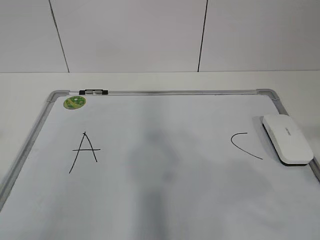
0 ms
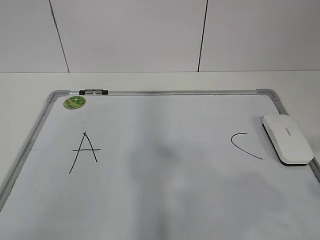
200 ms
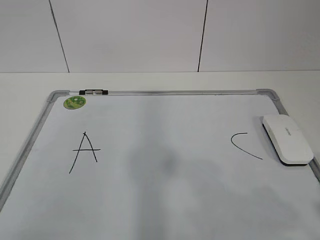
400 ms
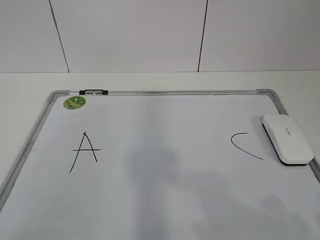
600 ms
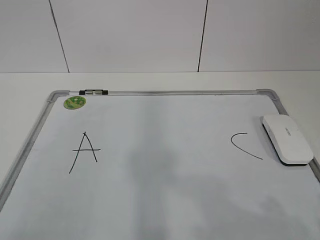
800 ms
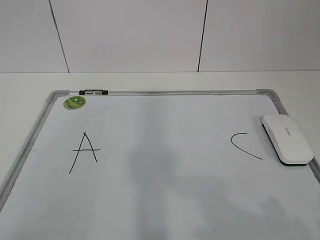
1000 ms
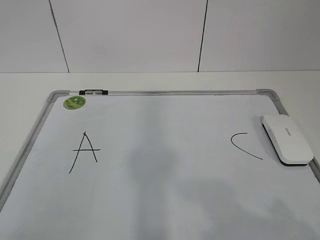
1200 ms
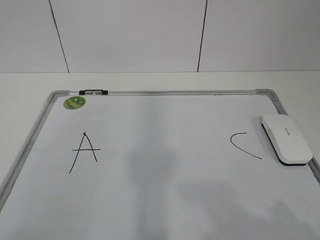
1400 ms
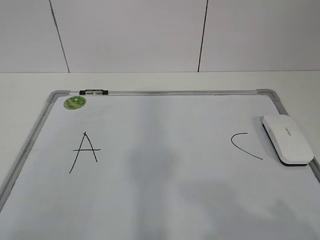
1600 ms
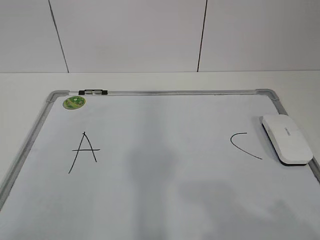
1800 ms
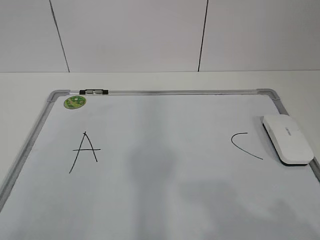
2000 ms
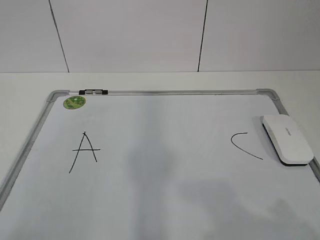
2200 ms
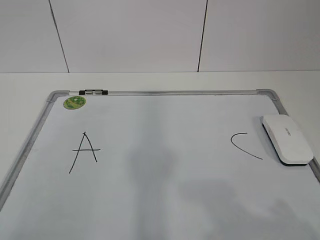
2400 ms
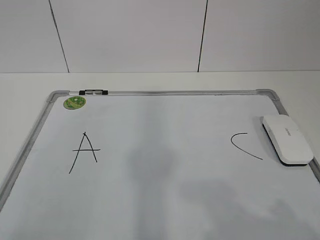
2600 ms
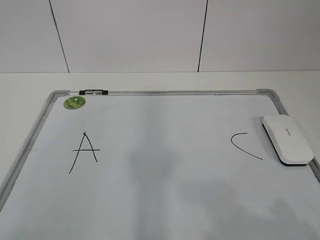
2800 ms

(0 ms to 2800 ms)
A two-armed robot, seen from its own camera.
Task of the whole recording: pick up the eraser on the blackboard and erase the letter "B".
0 ms - 1400 ms: The right gripper goes roughly 10 cm downward, while the left gripper is displaced downward by roughly 5 cm.
1400 ms - 2800 ms: Both grippers stay put.

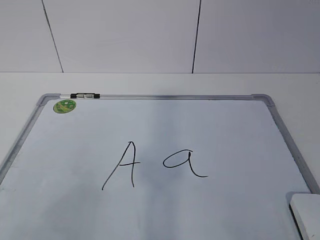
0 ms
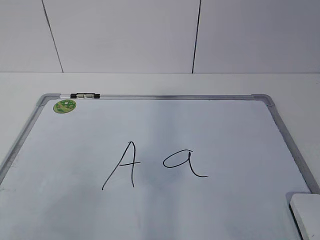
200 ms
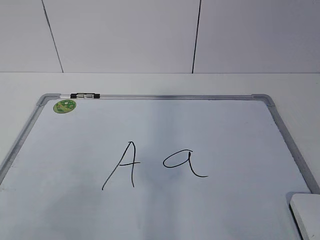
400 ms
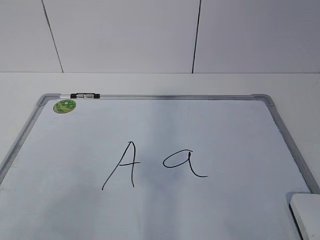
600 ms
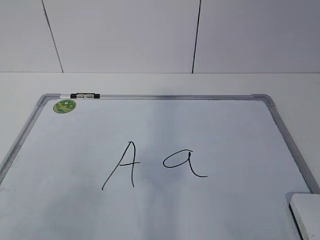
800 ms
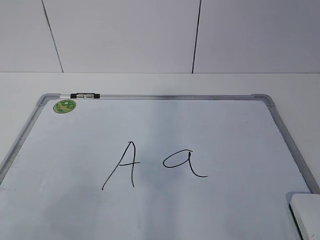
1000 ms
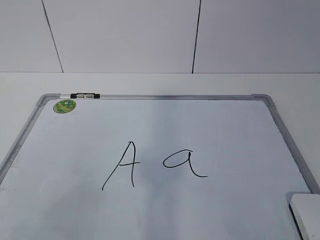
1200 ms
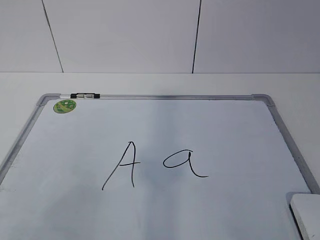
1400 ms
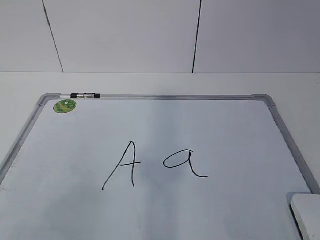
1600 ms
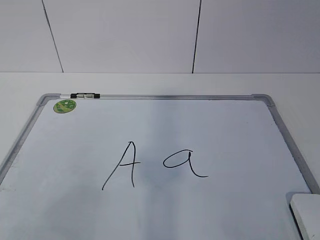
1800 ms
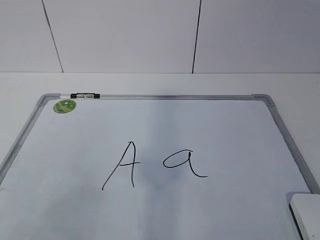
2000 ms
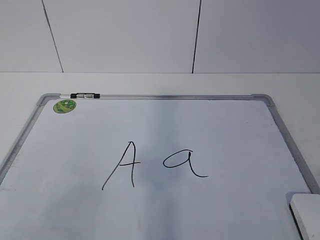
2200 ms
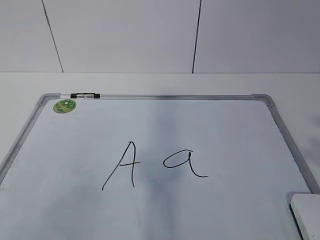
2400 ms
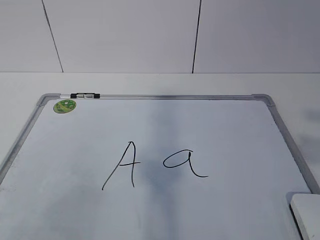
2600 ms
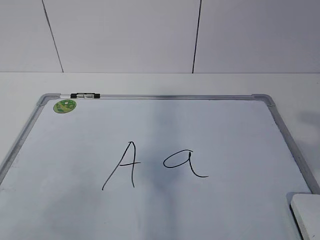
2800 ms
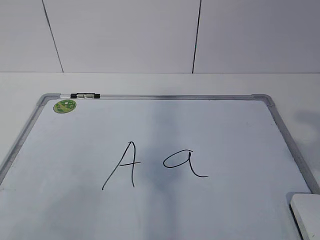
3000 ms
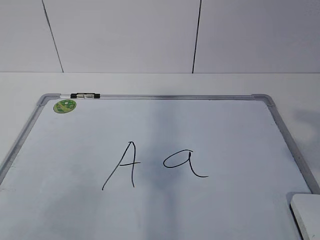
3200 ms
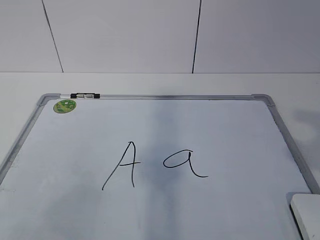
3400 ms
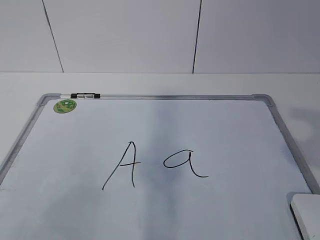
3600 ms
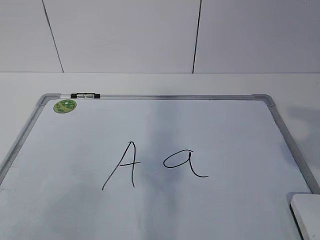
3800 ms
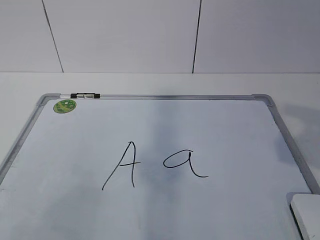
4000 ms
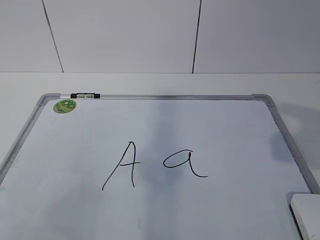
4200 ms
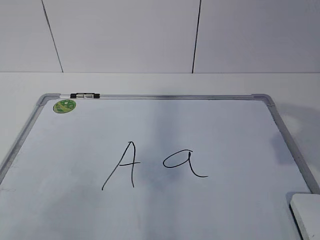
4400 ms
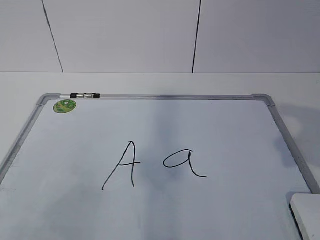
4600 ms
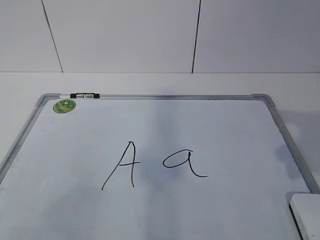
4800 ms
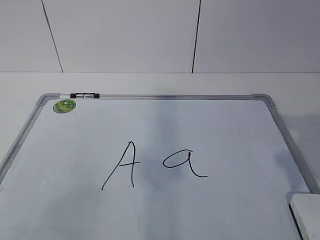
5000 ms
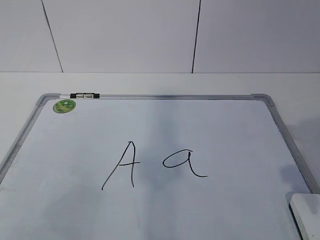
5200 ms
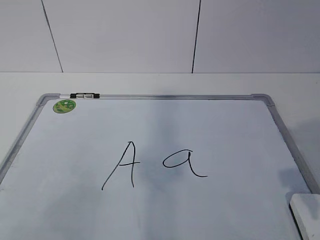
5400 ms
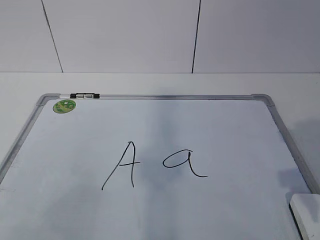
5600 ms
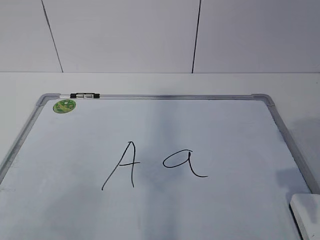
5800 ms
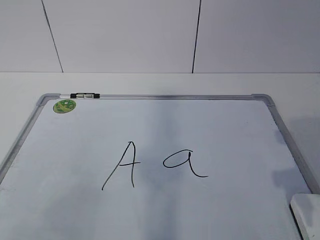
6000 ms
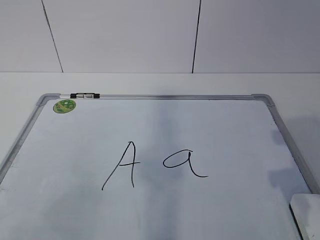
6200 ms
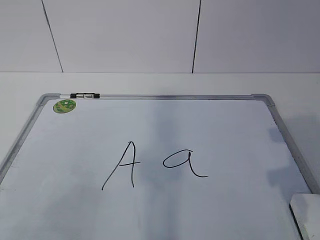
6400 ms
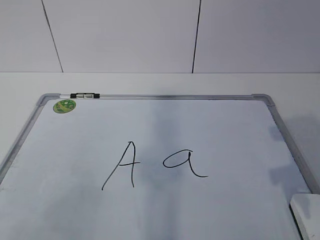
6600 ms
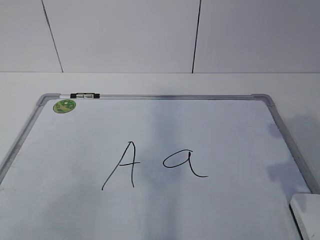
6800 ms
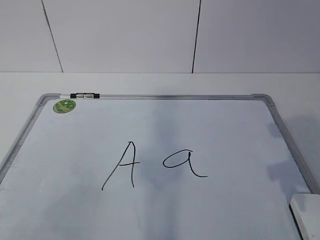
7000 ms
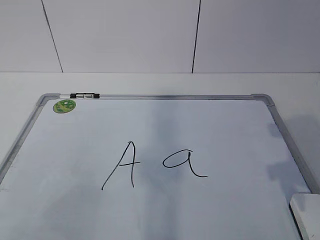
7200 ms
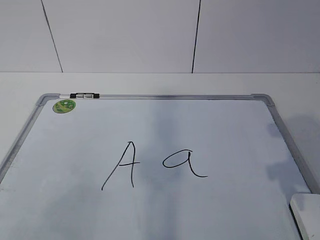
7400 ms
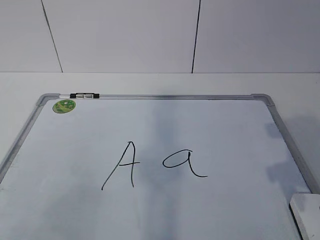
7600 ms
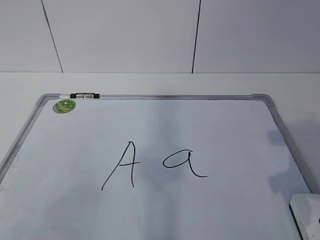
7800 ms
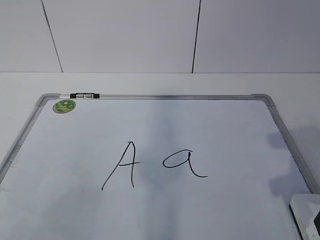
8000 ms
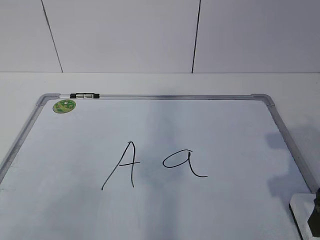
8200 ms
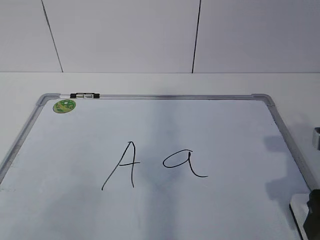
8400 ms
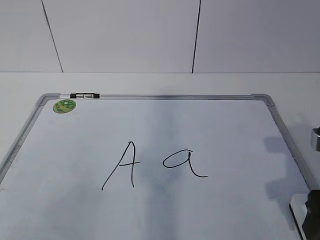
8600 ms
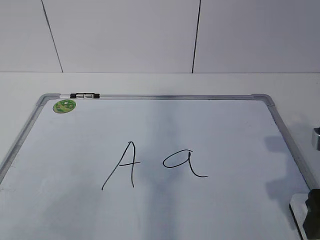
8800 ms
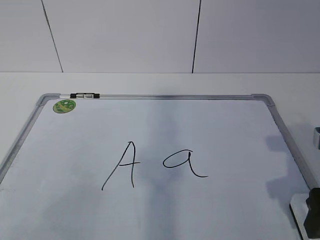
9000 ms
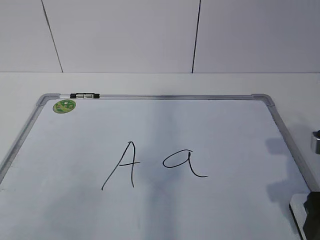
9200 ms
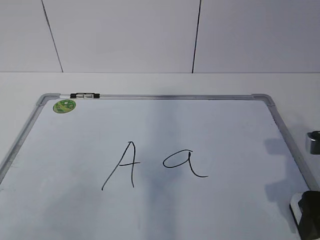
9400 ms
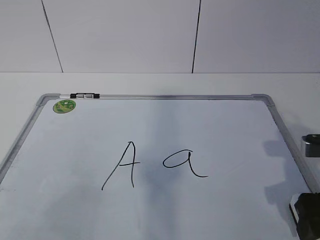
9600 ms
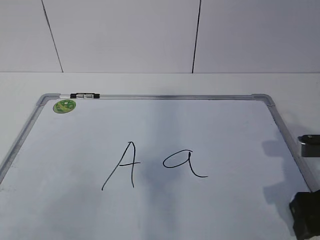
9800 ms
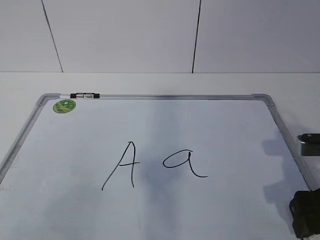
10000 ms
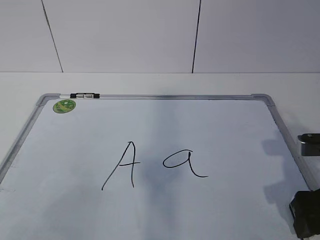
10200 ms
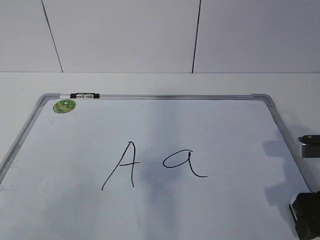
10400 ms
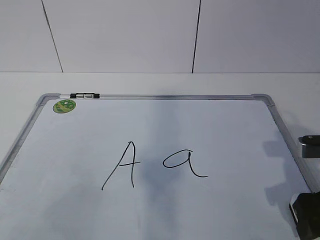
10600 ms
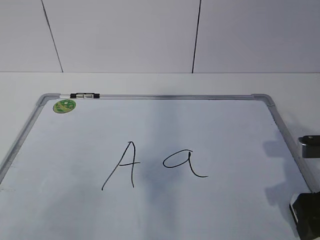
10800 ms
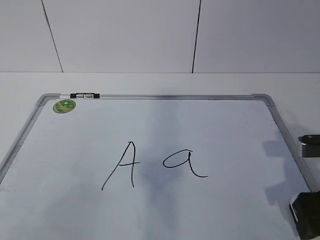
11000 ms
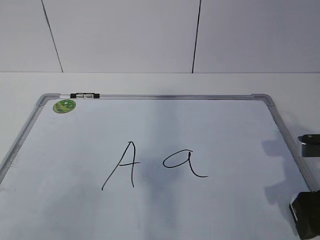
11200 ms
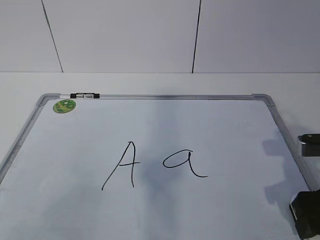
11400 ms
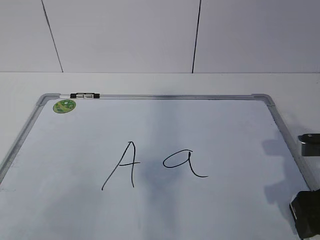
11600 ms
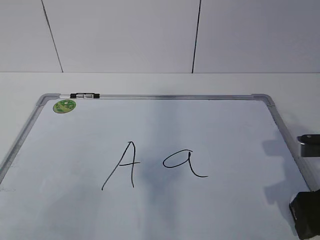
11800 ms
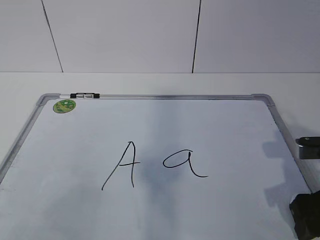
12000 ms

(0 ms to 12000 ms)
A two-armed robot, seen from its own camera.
Task of the whole recording: pick up the eraser on the blackboard and erase the letter "a".
4400 ms - 6000 ms: The right gripper is displaced downward by about 10 cm.
7600 ms - 9000 ms: The right gripper opens its fingers.
9000 ms - 10400 ms: The grippers stay close to where they were, moving slightly.
10400 ms - 12000 ms: Neither gripper changes place.

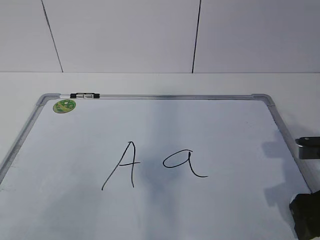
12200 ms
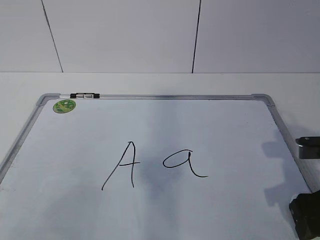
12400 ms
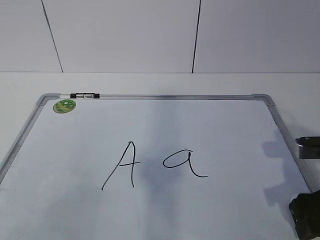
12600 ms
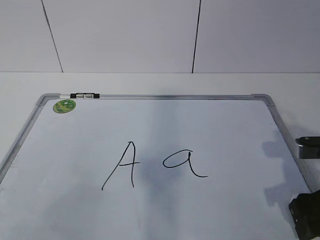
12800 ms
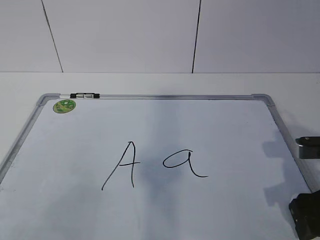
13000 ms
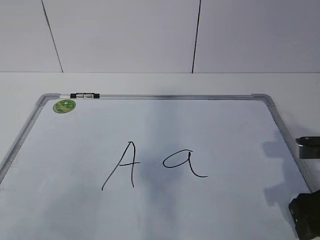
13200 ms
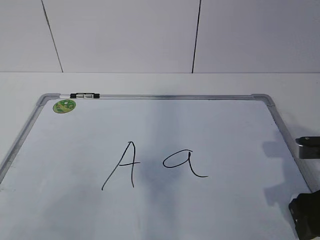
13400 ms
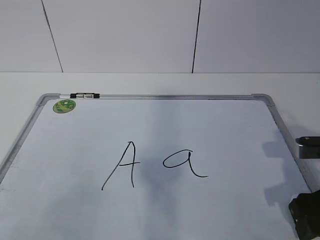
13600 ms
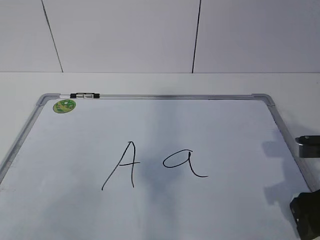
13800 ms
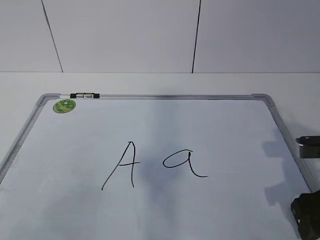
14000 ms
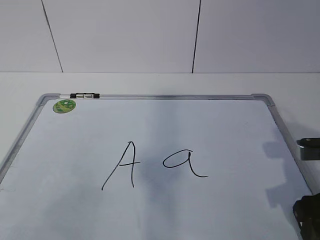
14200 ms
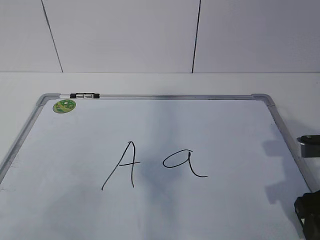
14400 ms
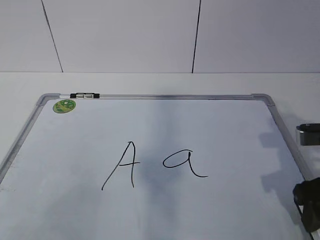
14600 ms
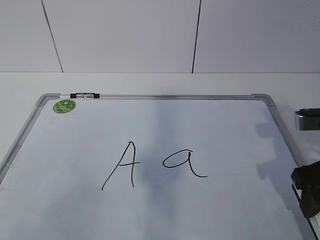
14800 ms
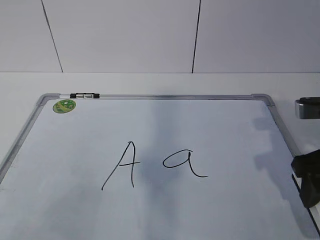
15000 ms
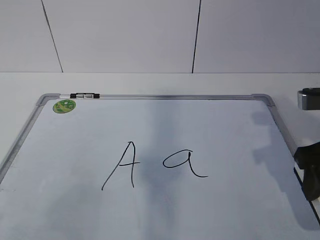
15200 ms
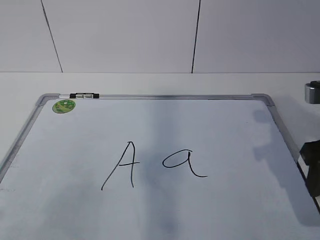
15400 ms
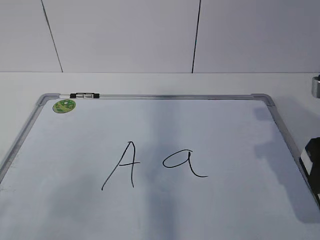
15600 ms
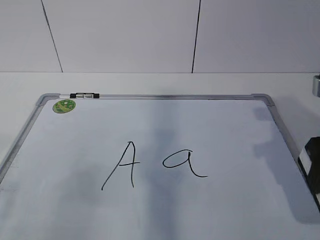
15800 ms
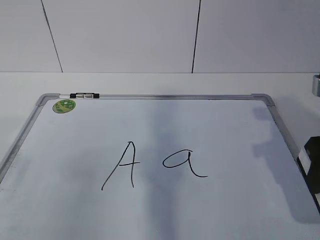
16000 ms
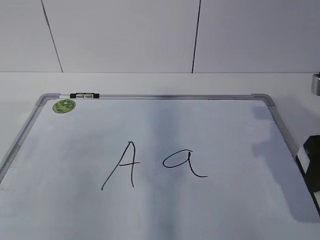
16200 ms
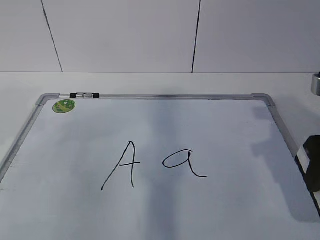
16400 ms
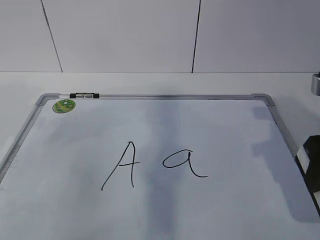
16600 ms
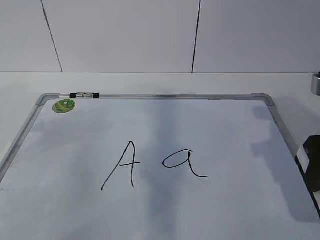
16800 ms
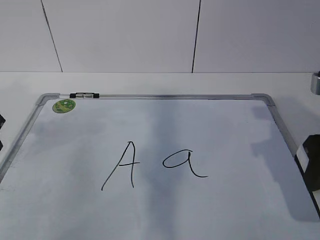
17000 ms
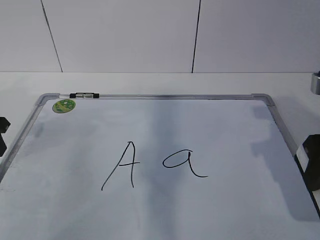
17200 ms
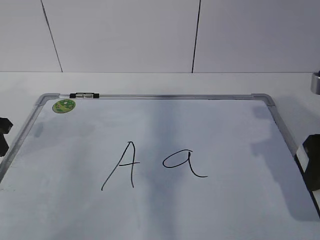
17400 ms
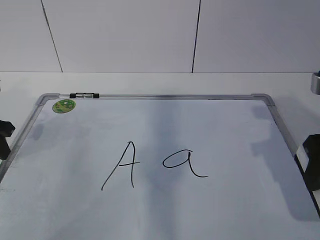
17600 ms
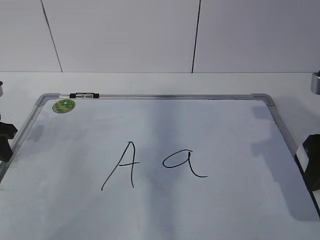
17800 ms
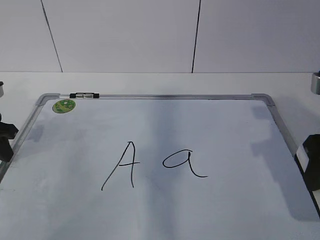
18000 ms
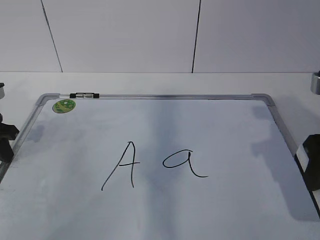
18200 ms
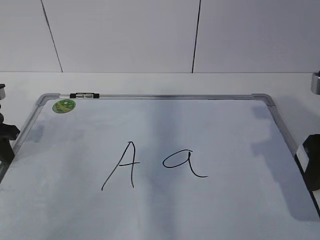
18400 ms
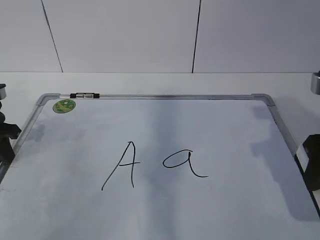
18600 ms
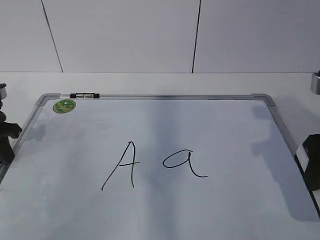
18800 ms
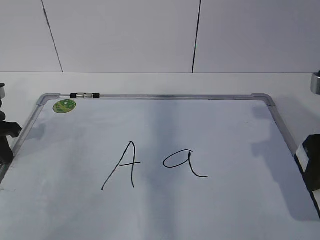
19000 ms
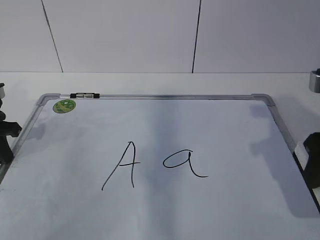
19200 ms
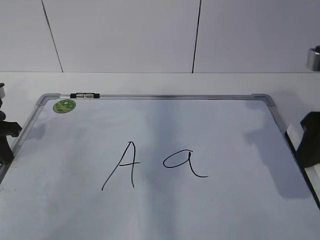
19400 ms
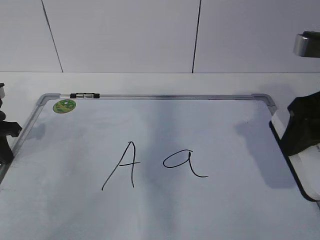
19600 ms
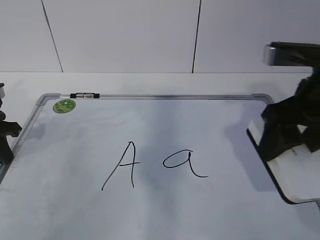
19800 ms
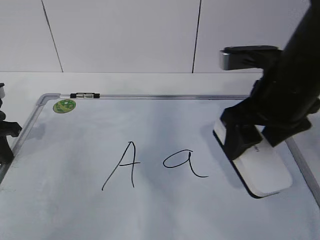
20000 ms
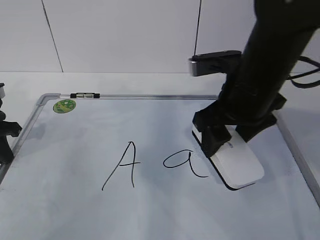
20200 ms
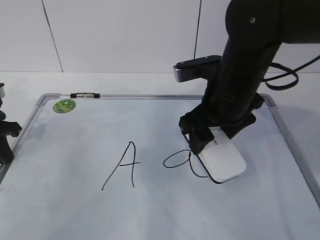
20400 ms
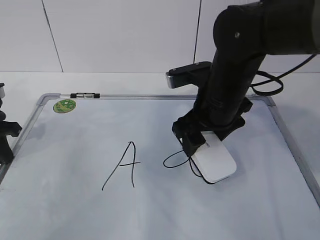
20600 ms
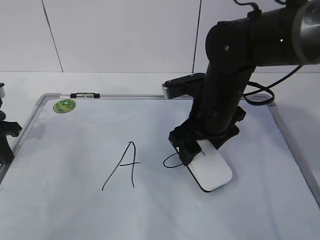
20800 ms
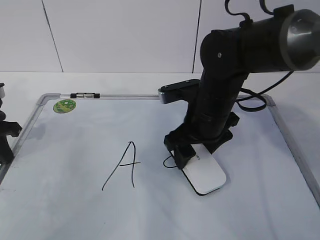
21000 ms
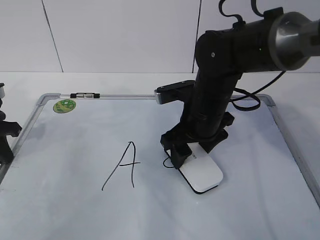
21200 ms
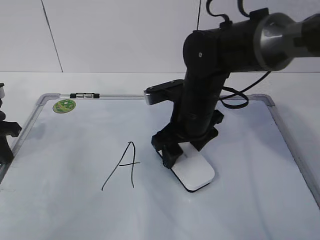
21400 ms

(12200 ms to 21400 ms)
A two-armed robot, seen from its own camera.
Task of the whole recording: pick up the eraser on the blackboard and erase the letter "a".
Step, 12200 ms - 15600 ms: Hold the drawing board steady with your left hand.
Step, 16000 ms - 20400 ms: Erase the letter a with your right hand.
13800 ms - 15200 ms: The right gripper shifts approximately 5 cm upward.
15200 ms - 16800 ms: The left gripper moves forward, approximately 30 cm.
16800 ms - 18400 ms: The left gripper travels downward by about 5 cm.
18400 ms - 19800 ms: The right gripper ends up some 5 cm from where it was.
19800 ms - 21400 ms: The right gripper is displaced to the left, downward and forward by approximately 20 cm.
